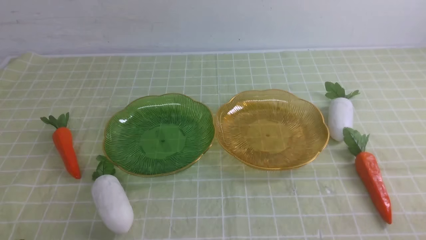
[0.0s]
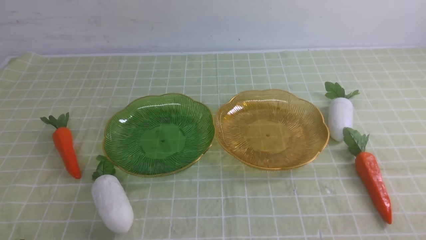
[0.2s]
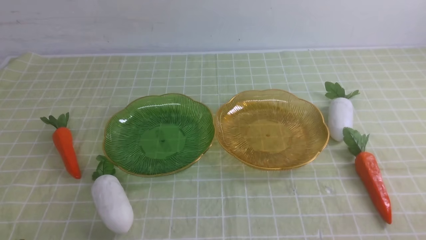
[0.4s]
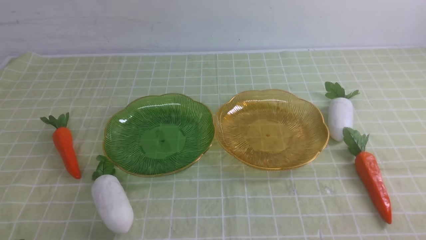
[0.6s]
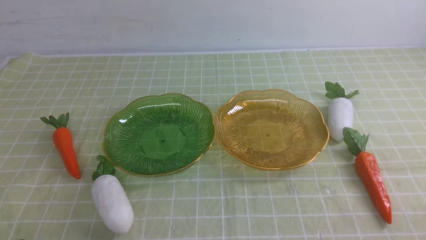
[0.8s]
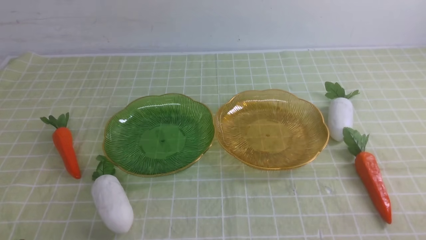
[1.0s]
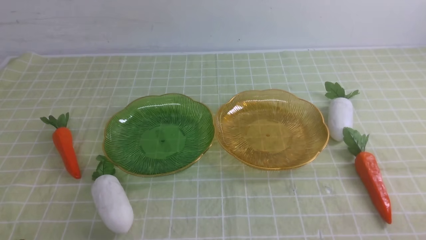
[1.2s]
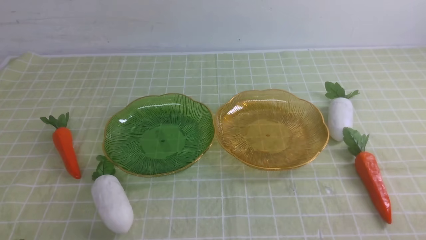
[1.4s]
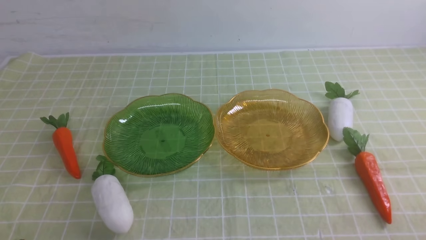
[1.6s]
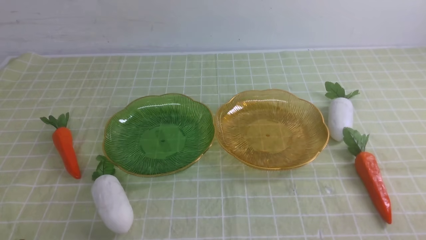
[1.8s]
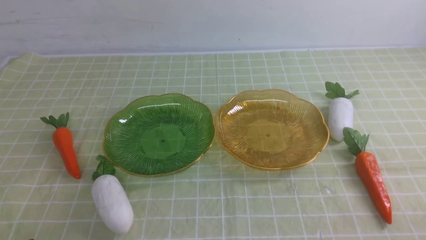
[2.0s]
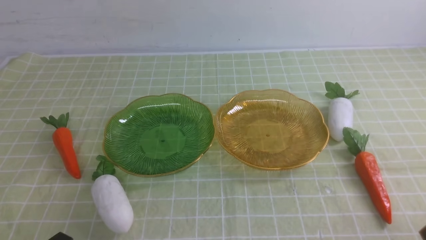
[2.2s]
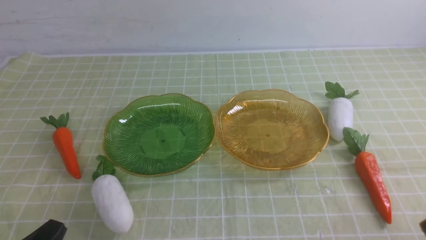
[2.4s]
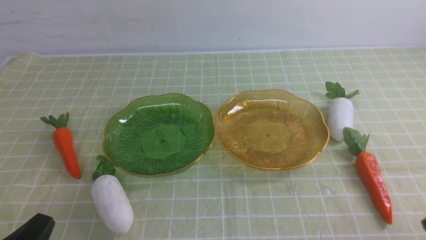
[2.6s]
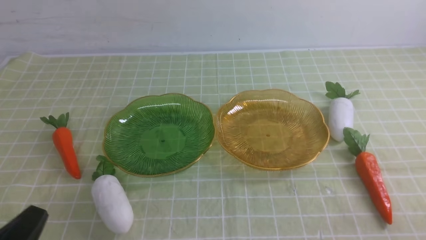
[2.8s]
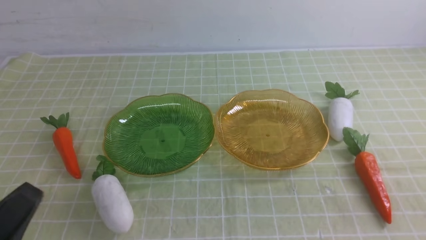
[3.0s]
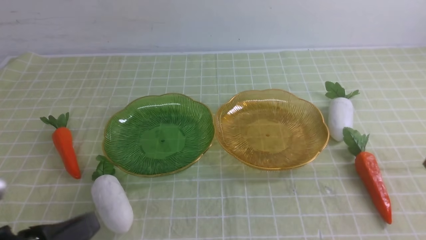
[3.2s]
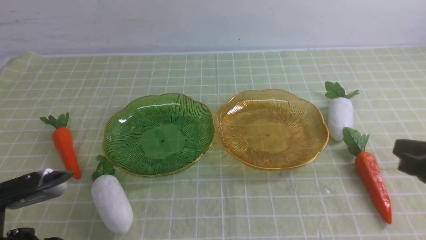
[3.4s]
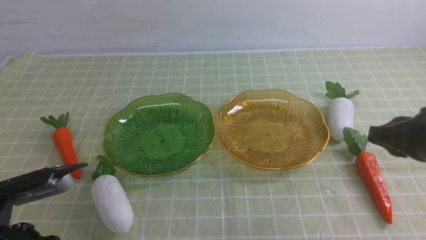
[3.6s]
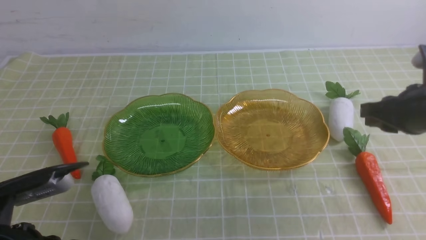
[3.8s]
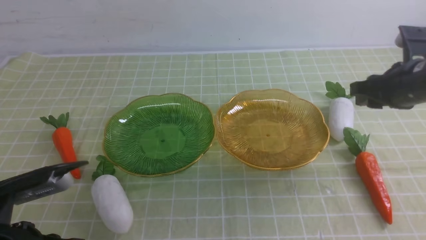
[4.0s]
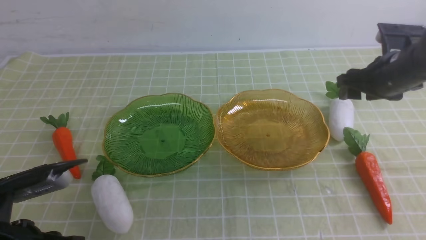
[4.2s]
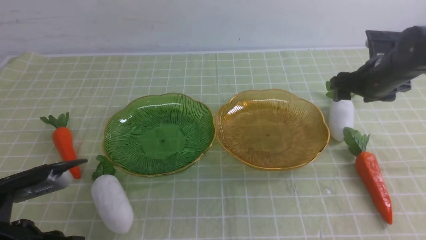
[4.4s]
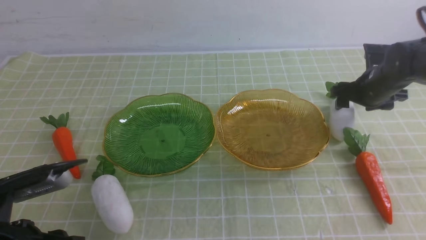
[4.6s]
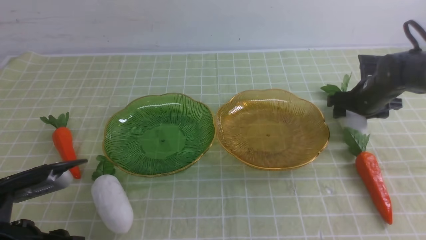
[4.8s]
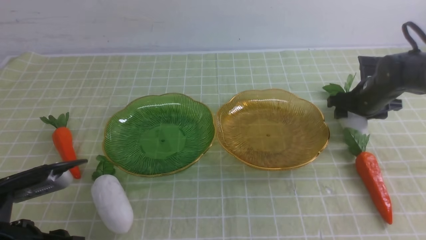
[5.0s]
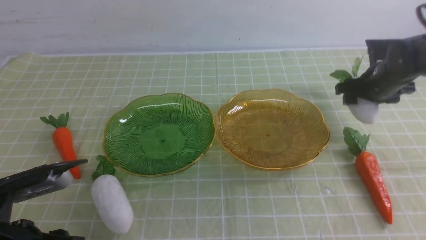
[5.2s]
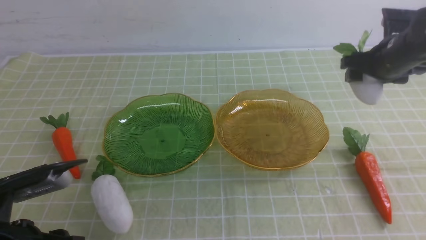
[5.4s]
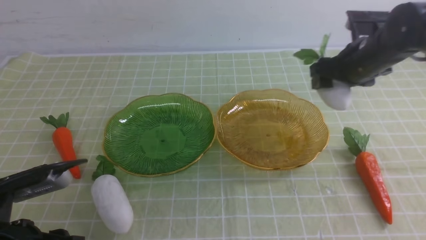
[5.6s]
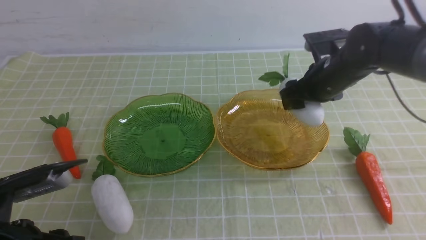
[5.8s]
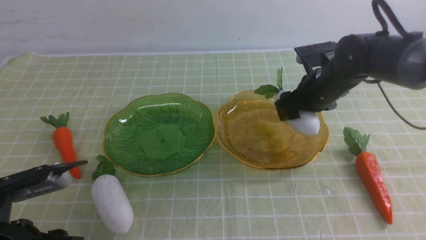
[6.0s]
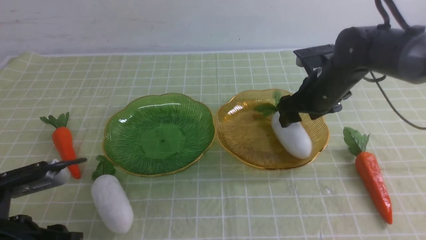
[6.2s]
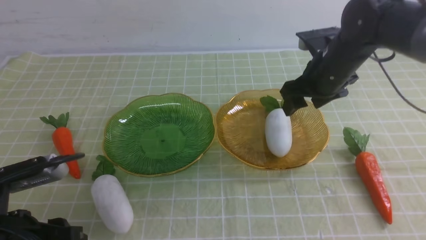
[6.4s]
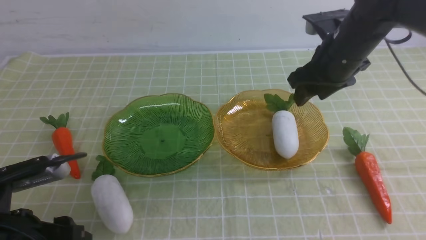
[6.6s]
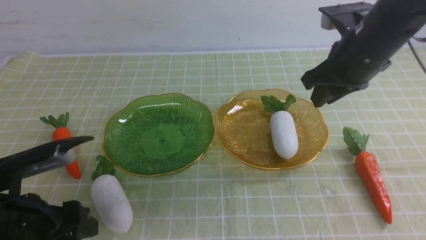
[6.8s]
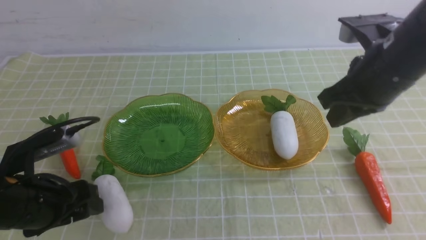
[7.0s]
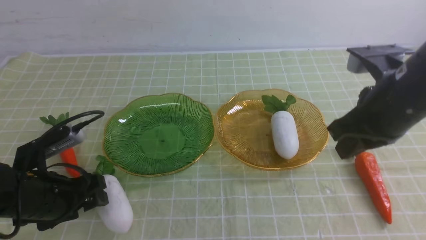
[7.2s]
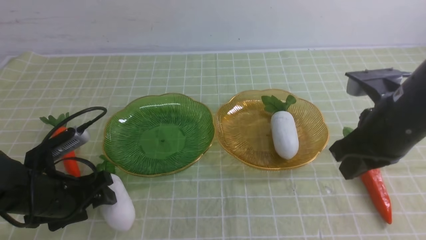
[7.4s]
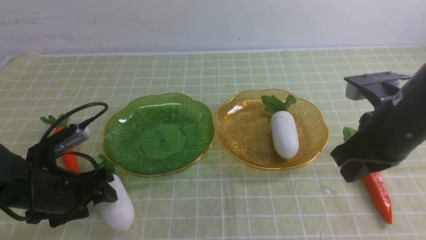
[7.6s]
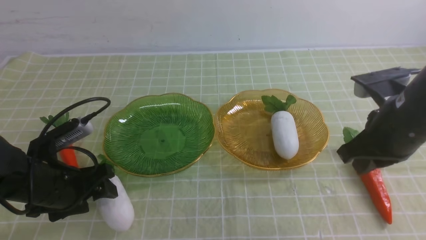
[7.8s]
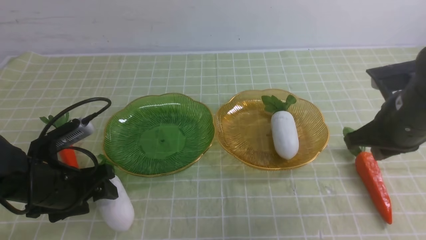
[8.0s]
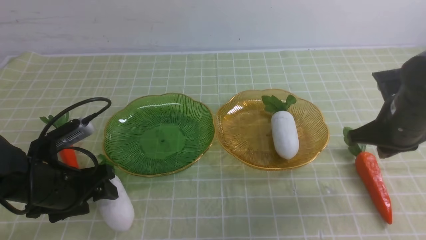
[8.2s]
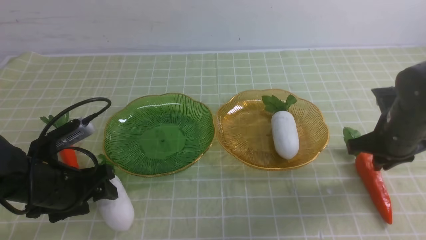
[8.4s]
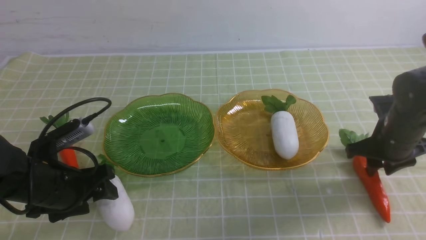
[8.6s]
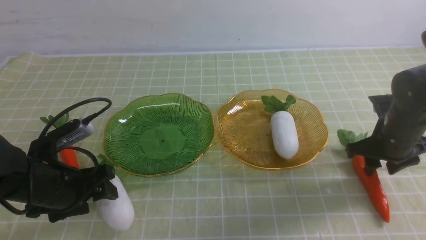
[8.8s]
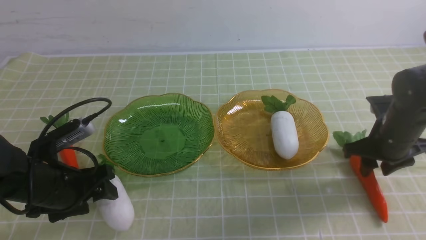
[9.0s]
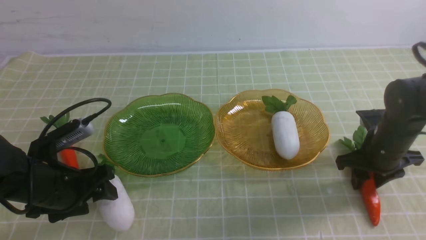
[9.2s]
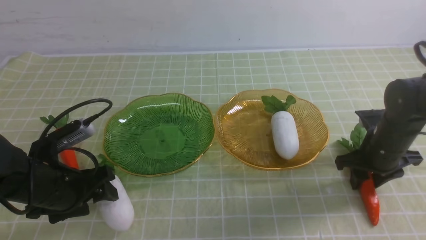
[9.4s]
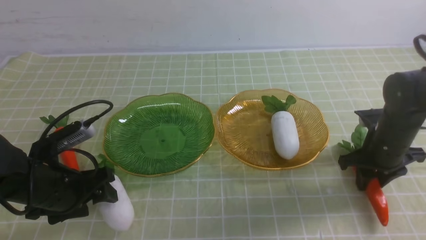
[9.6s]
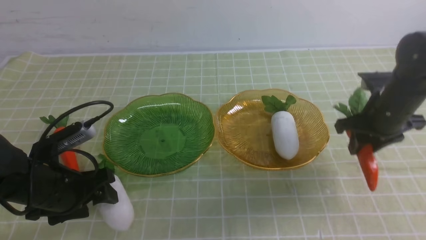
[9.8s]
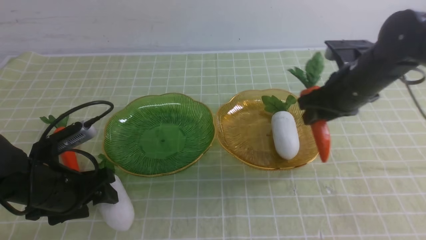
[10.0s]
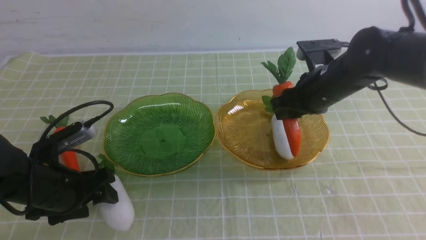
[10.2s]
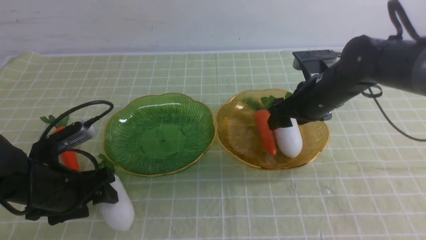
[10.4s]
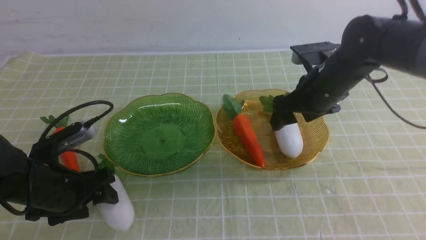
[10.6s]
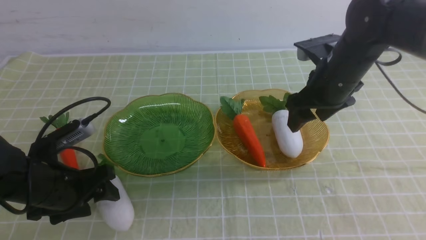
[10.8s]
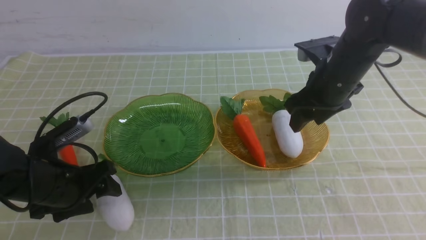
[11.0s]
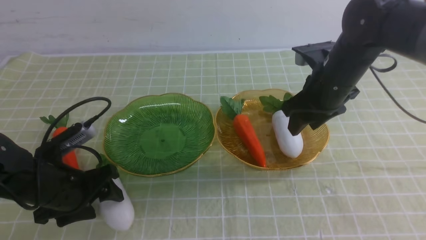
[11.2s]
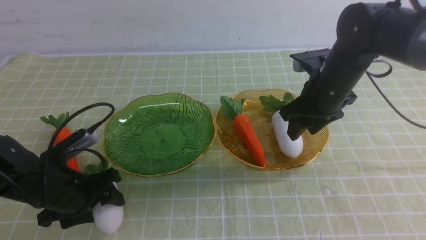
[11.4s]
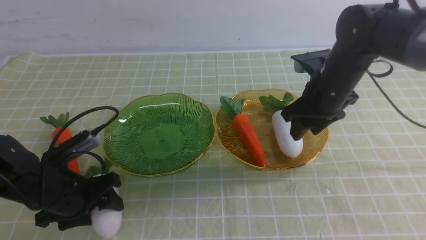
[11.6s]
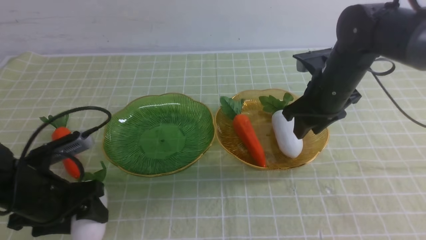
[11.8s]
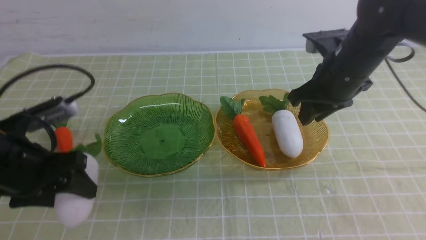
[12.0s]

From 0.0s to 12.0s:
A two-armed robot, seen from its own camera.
Step, from 0.0s to 6.4s: use the right arm to grab a radish and put it into the right plate.
Step, from 6.8s to 11.0s: use the right arm to grab a carrot and put it into the right plate.
From 1.6s to 3.0s: The left gripper travels upward by about 5 cm.
From 3.0s to 4.4s: The left gripper is displaced forward by roughly 5 cm; the right gripper heads forward, covering about 35 cm, and opens up.
From 4.4s to 6.0s: The right gripper shifts some 10 cm to the left.
From 6.0s to 7.6s: The right gripper shifts approximately 15 cm backward and upward, and closes its fingers. Meanwhile the left gripper travels forward and downward by about 10 cm, and opens its fingers.
From 7.6s to 9.0s: The right gripper is displaced downward, forward and to the right by roughly 15 cm, and opens.
From 9.0s to 10.4s: The right gripper goes some 15 cm to the left and upward.
From 10.4s to 12.0s: The left gripper is displaced upward by roughly 5 cm, while the right gripper changes place by some 5 cm, and closes.

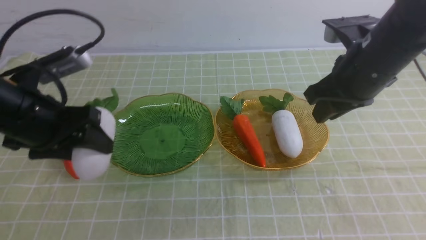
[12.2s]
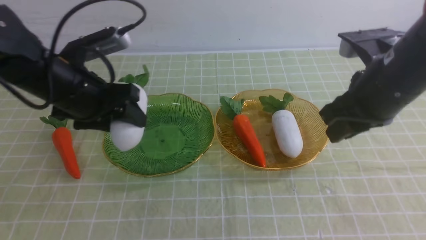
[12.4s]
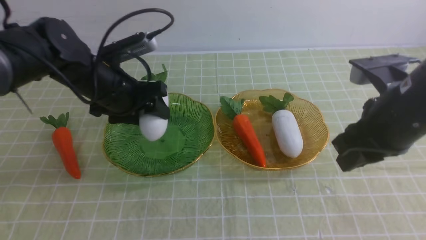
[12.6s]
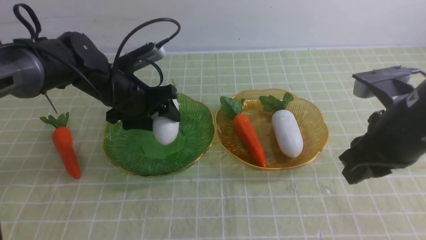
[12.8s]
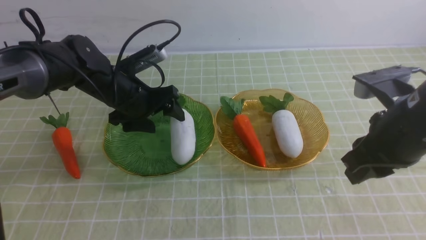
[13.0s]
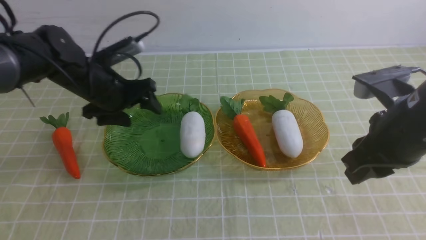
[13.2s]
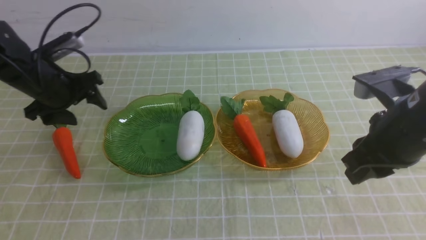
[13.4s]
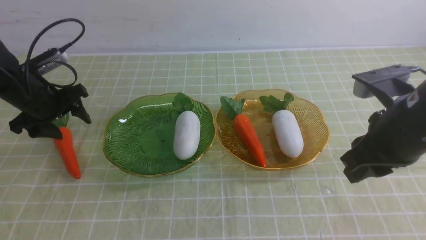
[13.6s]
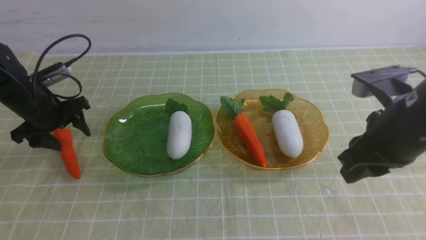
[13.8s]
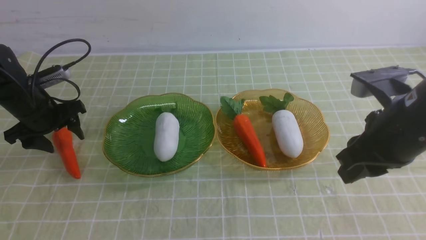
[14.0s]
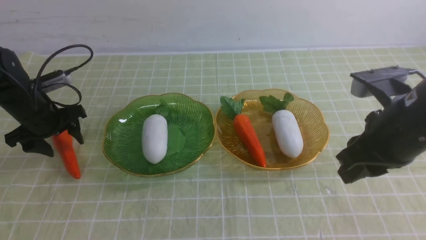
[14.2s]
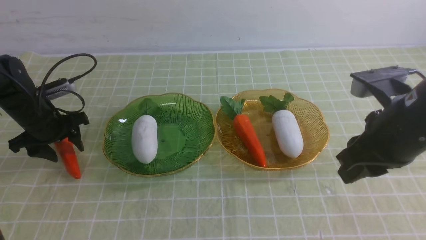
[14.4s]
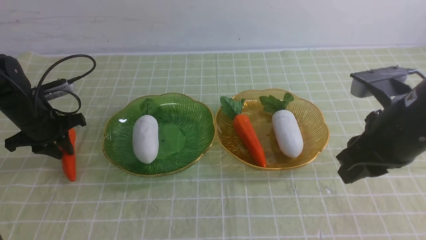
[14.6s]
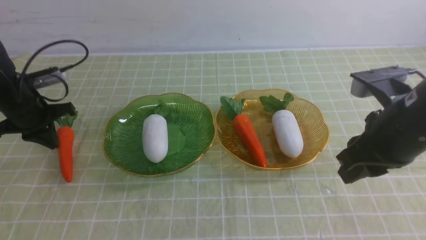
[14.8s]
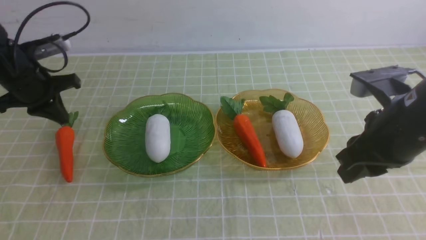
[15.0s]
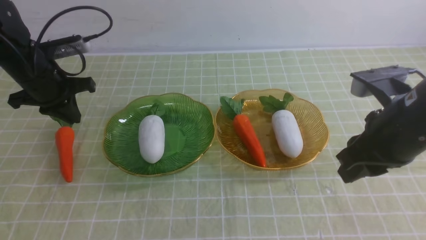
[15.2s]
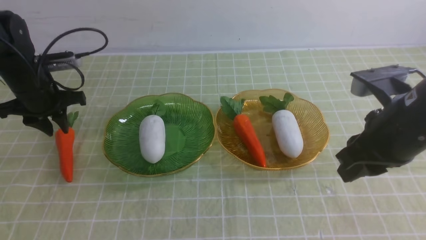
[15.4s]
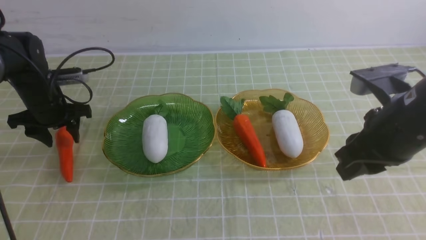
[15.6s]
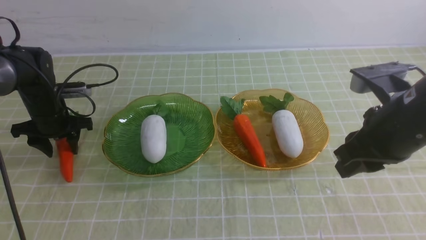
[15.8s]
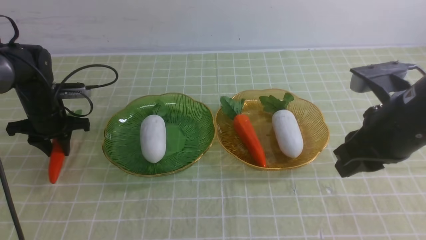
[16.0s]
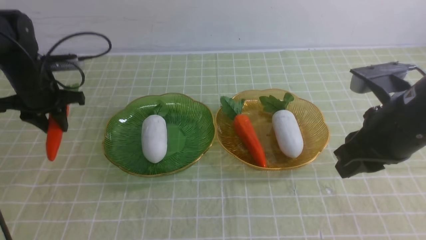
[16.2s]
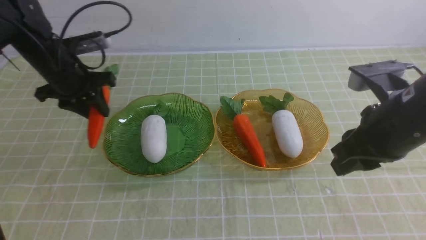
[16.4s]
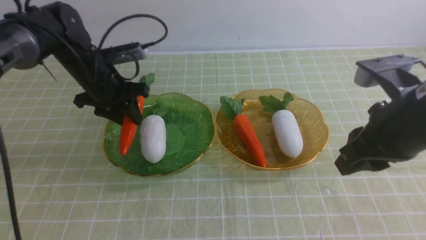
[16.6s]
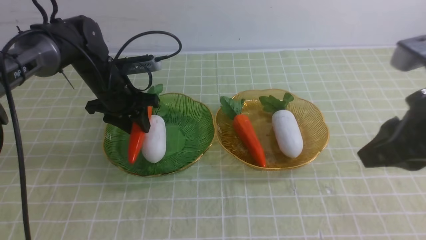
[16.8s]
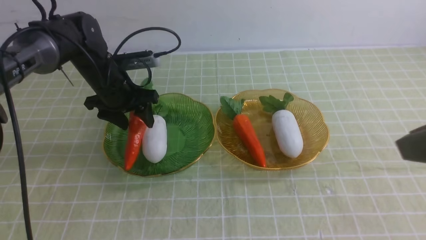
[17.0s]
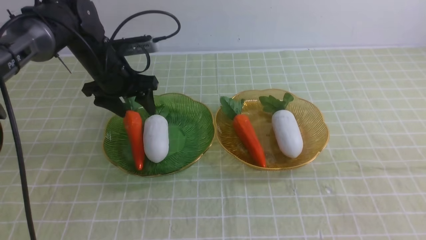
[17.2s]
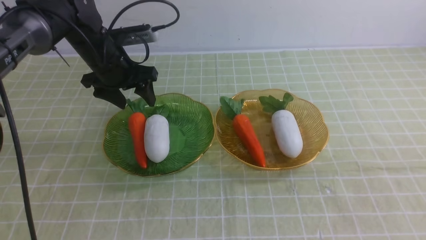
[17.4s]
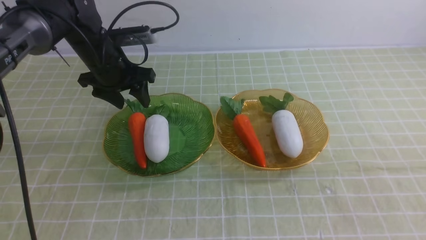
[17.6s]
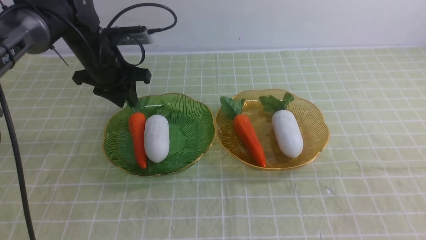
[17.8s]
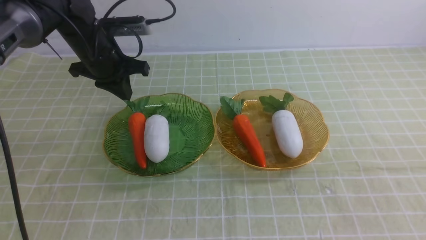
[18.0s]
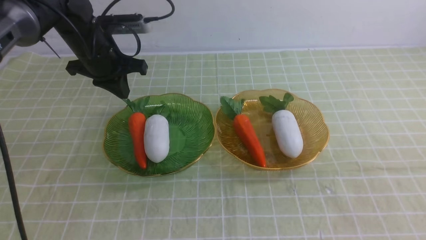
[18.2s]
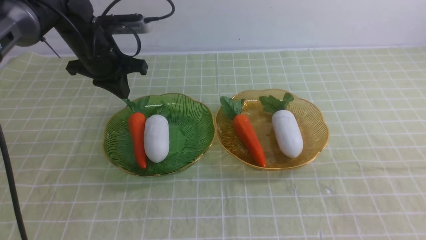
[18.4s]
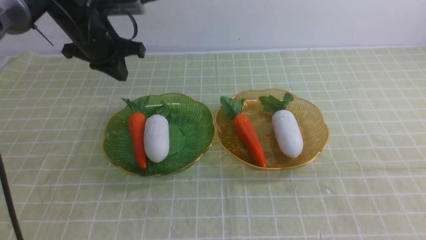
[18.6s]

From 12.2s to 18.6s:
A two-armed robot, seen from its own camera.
Step, from 12.2s to 13.4s: use the left arm to grab a radish and put it into the left plate.
Step, from 13.6s to 17.4s: use the left arm to grab a carrot and put it into the left plate.
From 12.2s to 13.8s: The right gripper shifts about 10 cm backward. The left gripper goes roughly 20 cm forward, to the left and downward.
From 13.8s to 15.4s: The left gripper closes up.
From 15.4s to 17.0s: The left gripper is displaced to the right by about 10 cm, and opens up. The right gripper travels backward and upward by about 15 cm.
From 17.0s to 18.6s: The left gripper moves upward, about 10 cm, and closes. Meanwhile the right gripper travels backward by some 5 cm.
